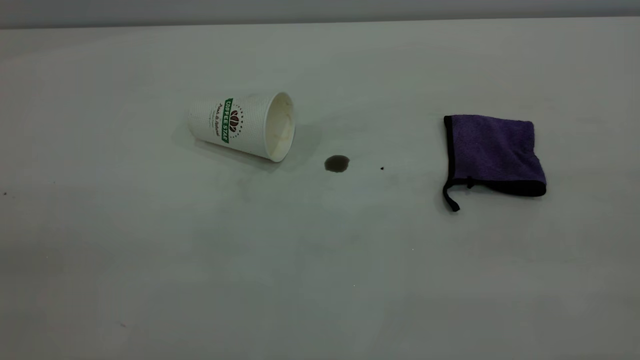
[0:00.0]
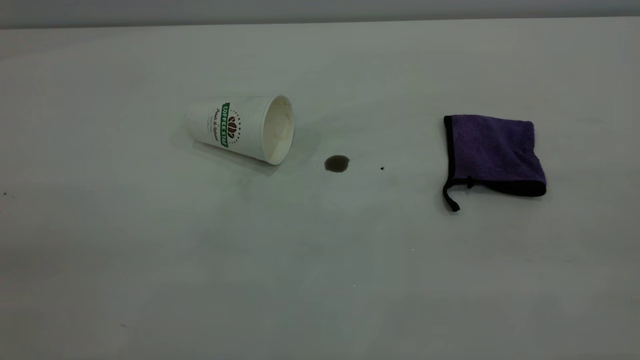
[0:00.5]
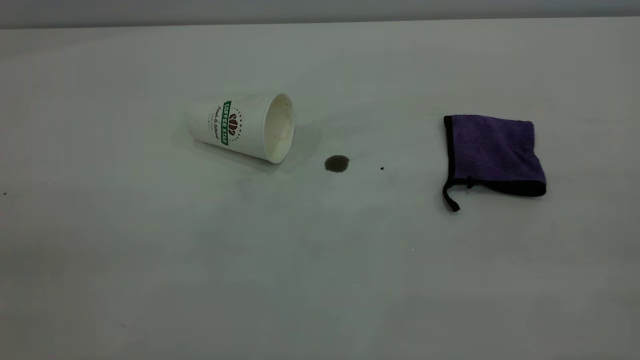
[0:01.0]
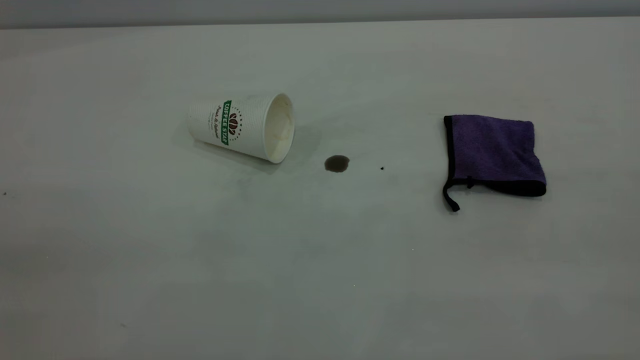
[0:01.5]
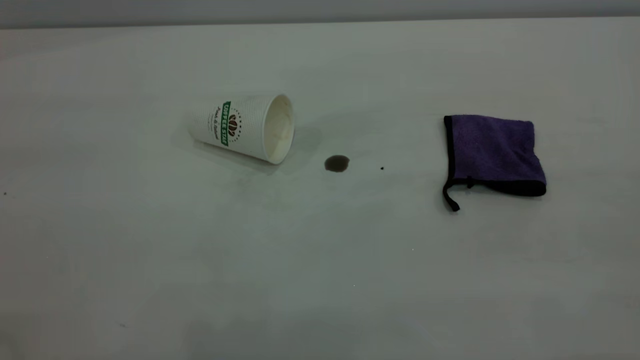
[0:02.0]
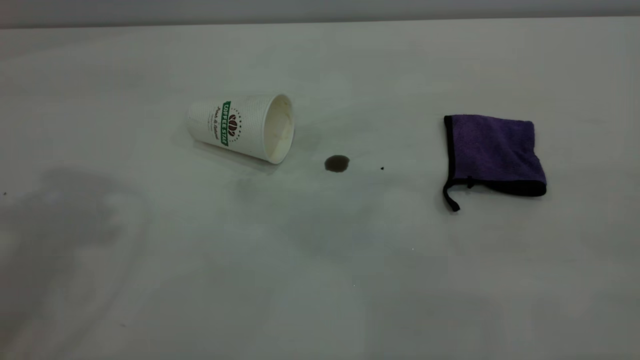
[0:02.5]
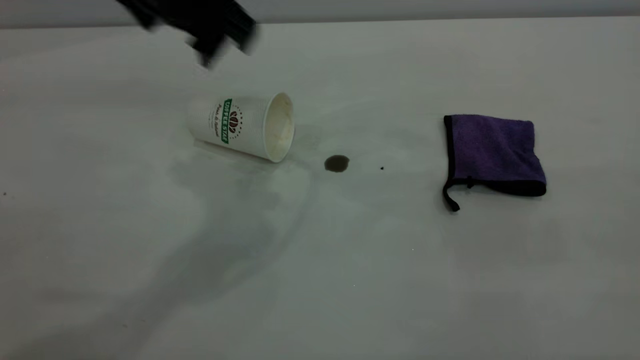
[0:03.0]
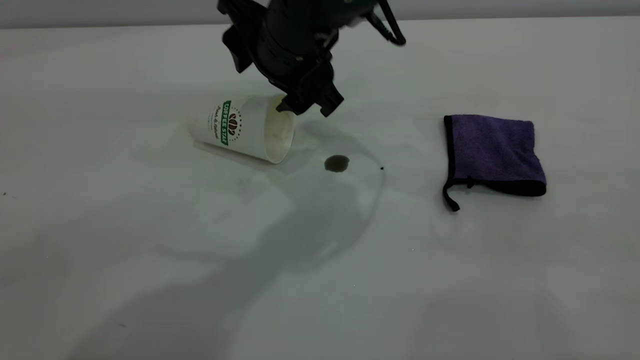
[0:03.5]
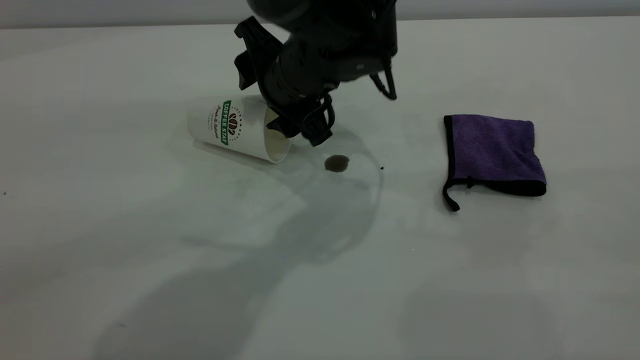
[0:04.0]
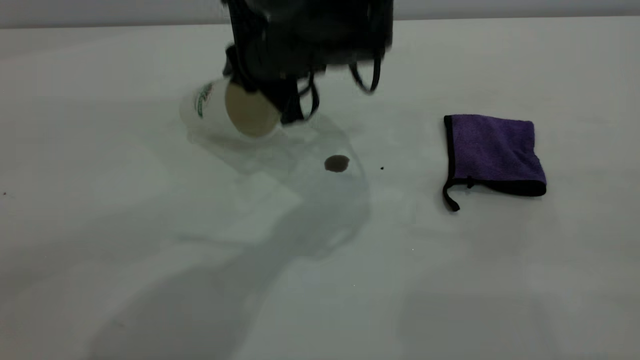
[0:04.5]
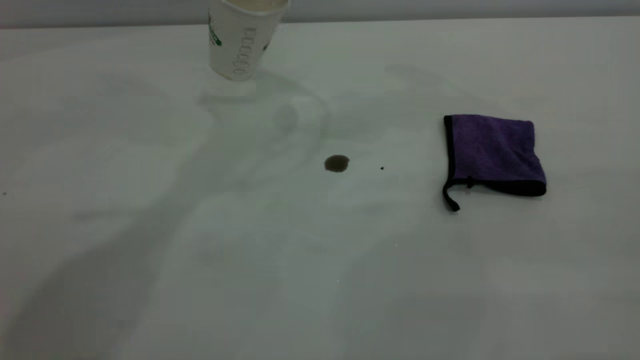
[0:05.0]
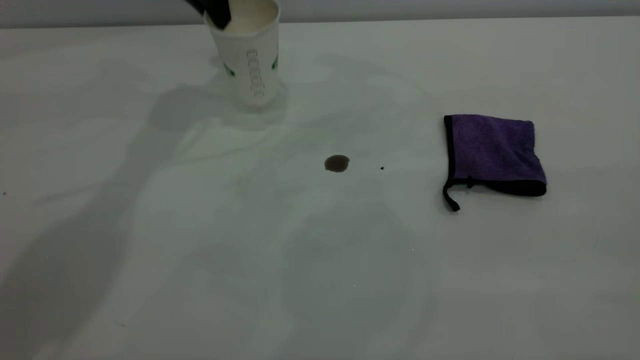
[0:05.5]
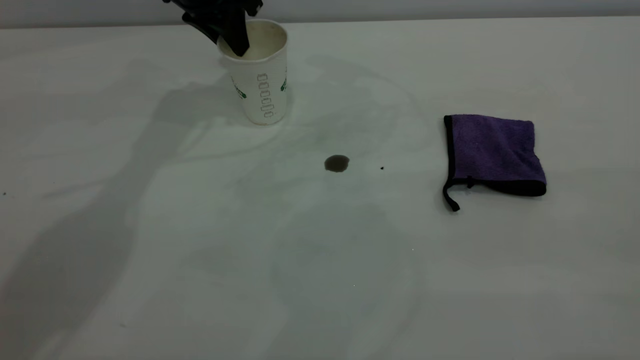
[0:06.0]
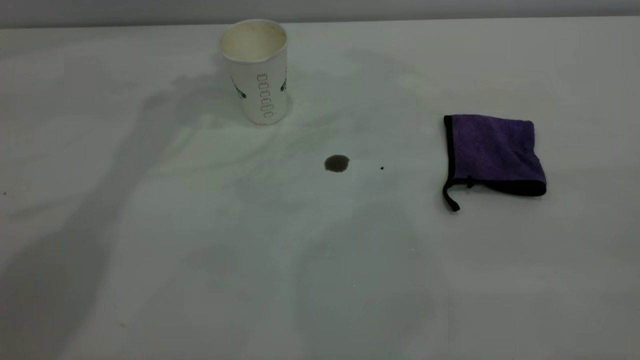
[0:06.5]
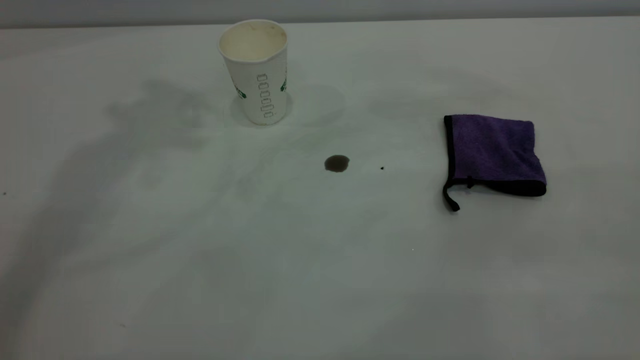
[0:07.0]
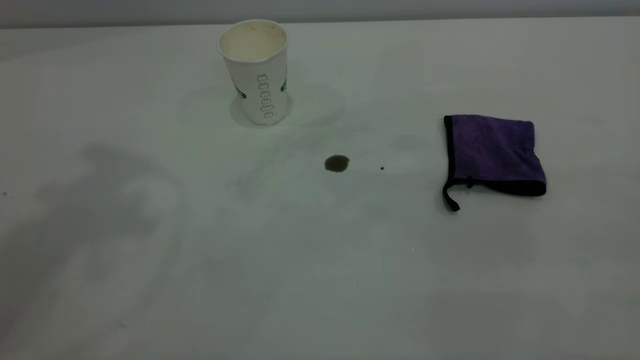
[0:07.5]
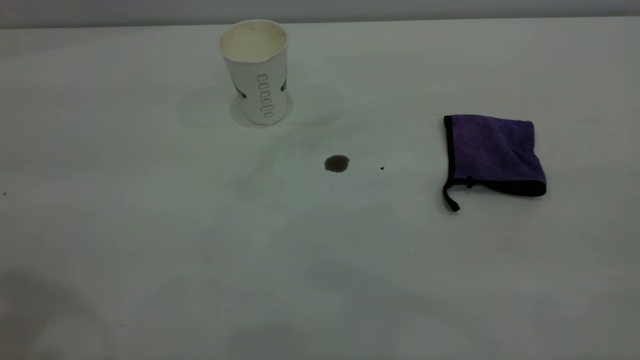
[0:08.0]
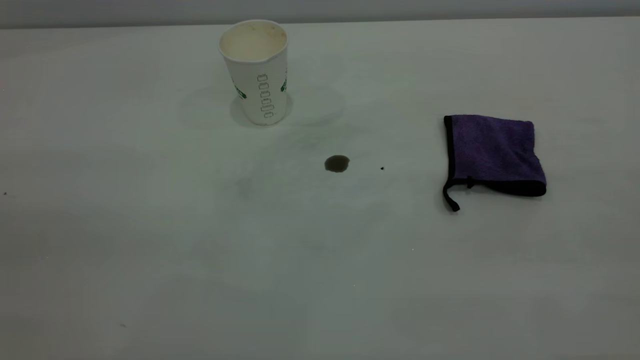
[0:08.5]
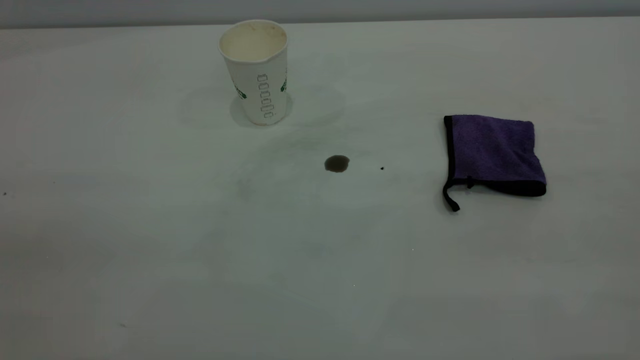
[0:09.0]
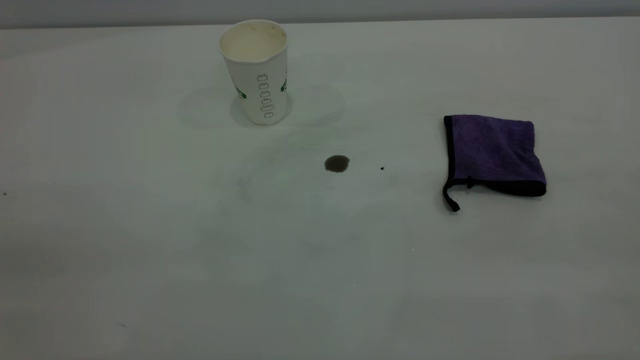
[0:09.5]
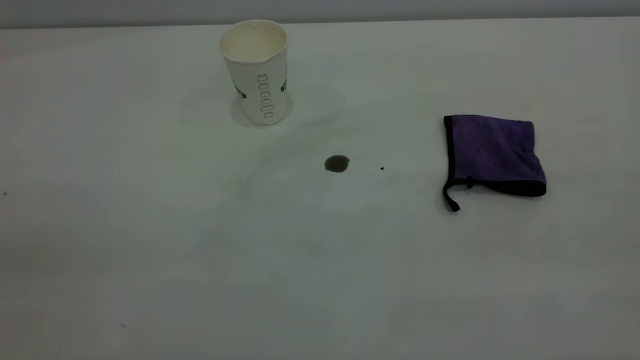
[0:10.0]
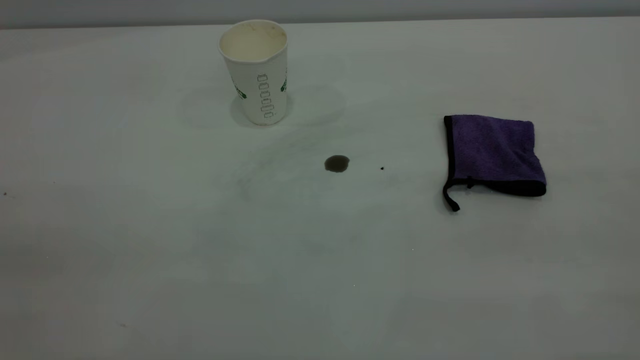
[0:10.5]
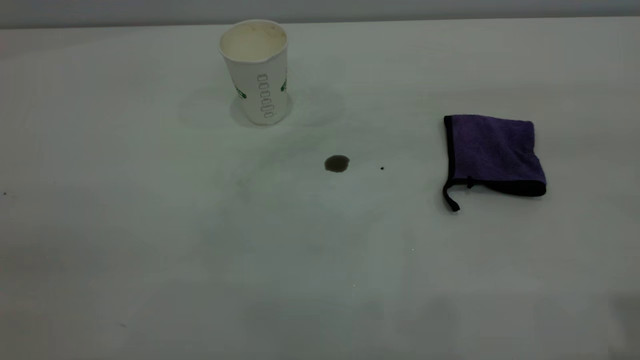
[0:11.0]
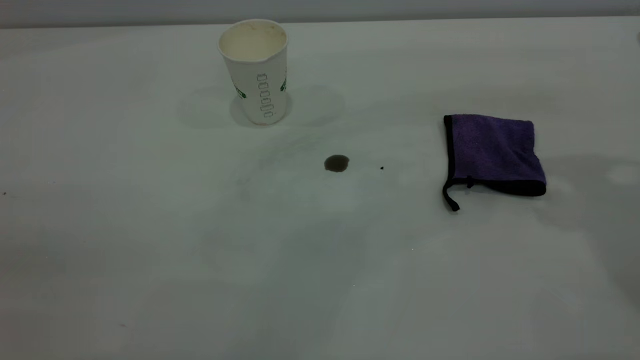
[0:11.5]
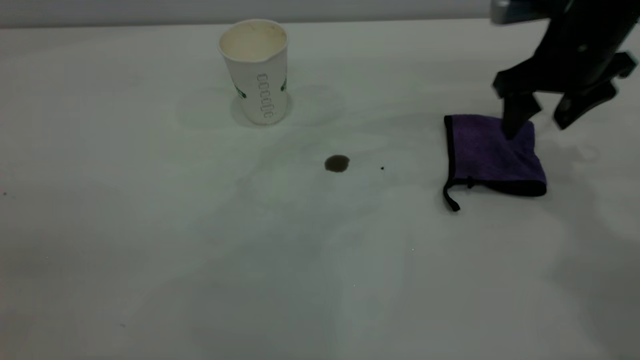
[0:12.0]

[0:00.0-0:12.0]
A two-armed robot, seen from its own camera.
Task of the whole recording: the left gripper pick up the fallen cup and place it upright, the right gripper grasp the purple rag and wipe the coffee stain on the table, the right gripper put the purple rag back in its original position.
Step, 0:00.0 to 0:06.0: Stand the paper cup upright.
0:02.0 to 0:04.0: The left gripper shifts approximately 50 cm downward, to the right and forward.
0:04.0 to 0:06.0: The left gripper travels to the left, forward and upward by approximately 20 cm, and closes up.
0:06.0 to 0:08.0: The left gripper travels backward and upward by some 40 cm.
0:10.0 to 0:12.0: The right gripper goes roughly 50 cm forward and downward, and opens its fingers.

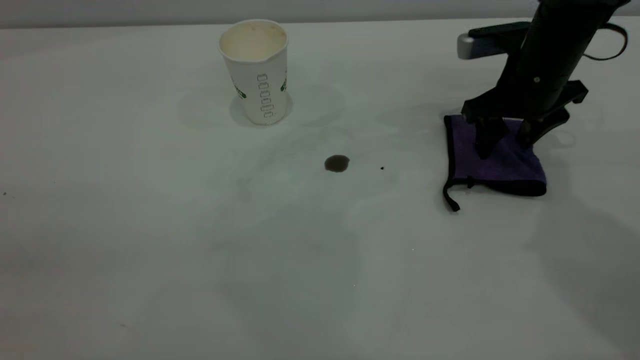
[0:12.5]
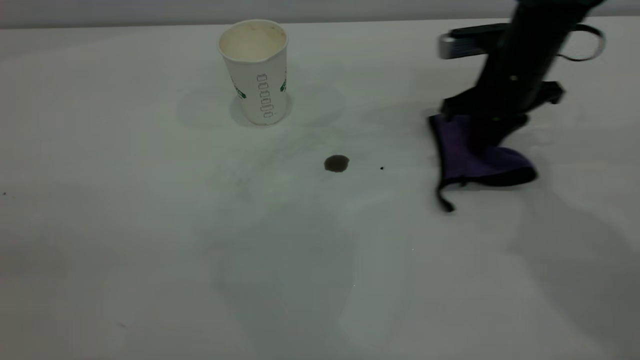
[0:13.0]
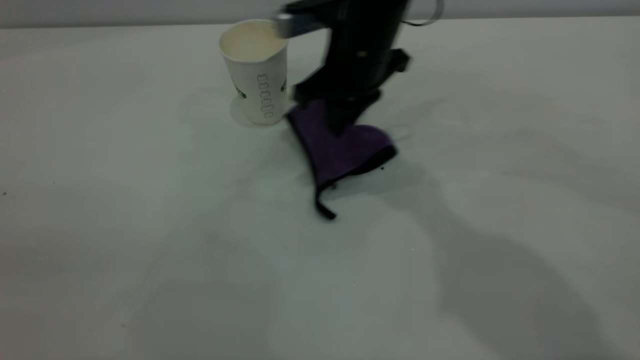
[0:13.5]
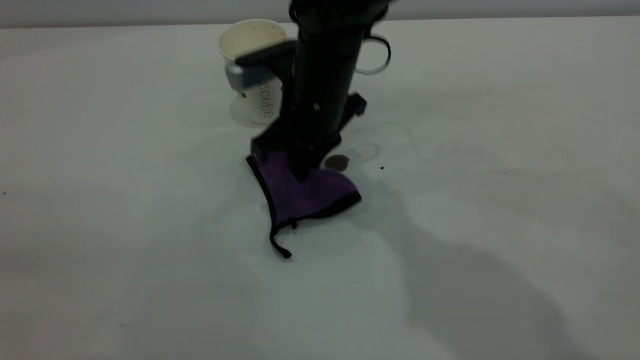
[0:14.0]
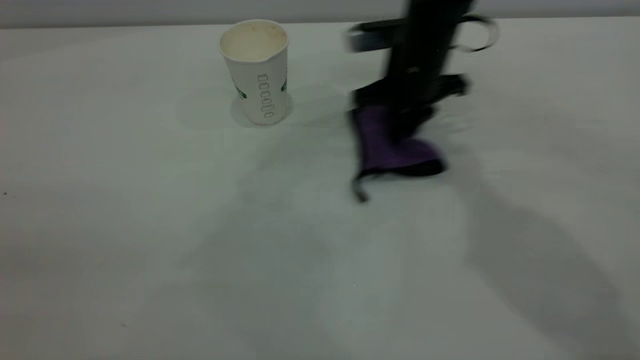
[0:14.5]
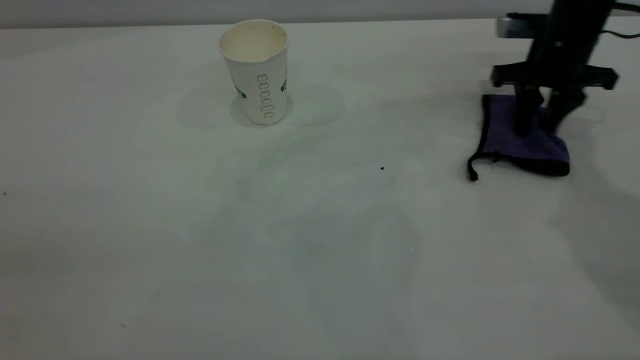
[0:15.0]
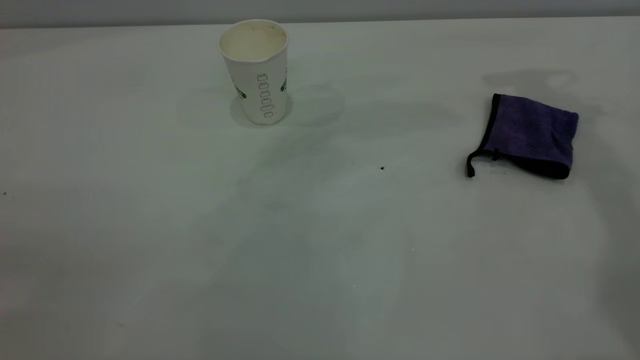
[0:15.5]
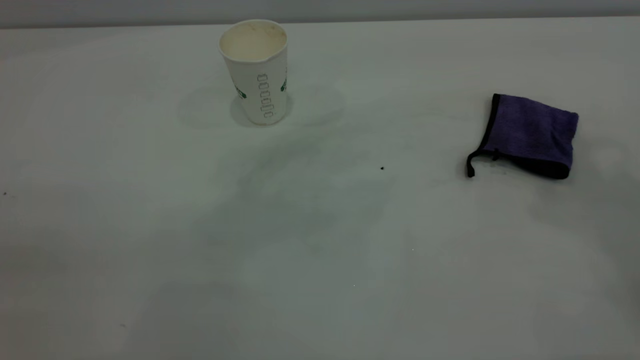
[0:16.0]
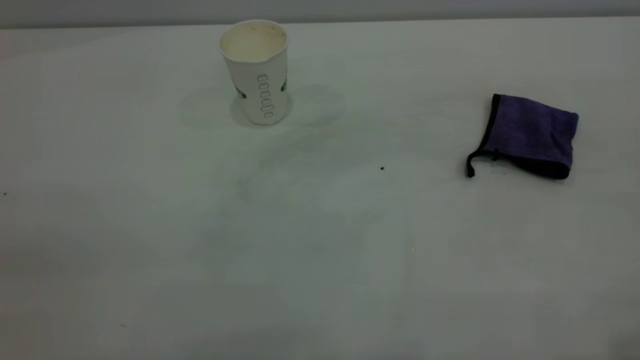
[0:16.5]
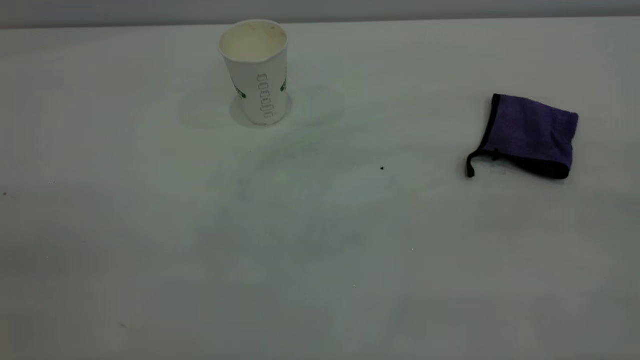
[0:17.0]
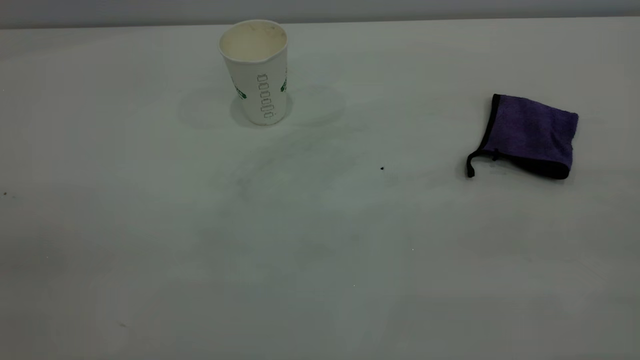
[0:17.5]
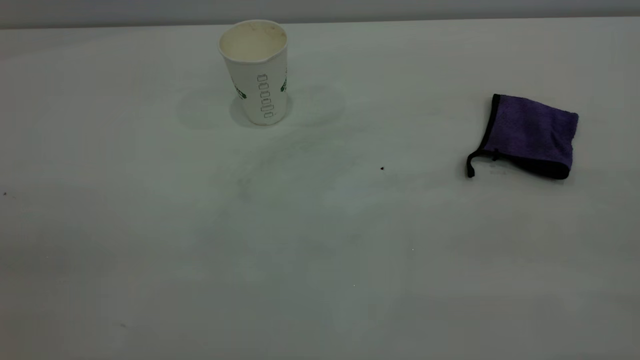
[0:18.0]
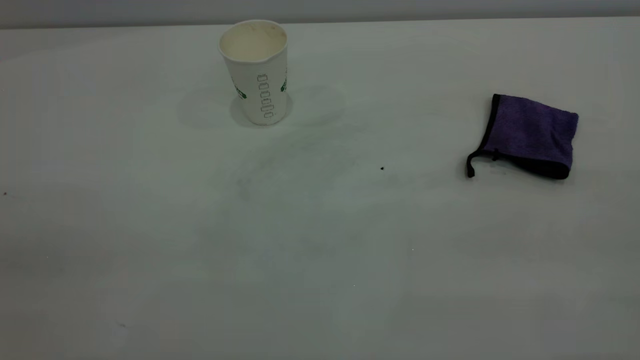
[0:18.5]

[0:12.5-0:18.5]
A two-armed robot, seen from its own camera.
Task of the whole recording: the left gripper pick up the fallen cup and place it upright, the right gripper grasp the purple rag and wipe the coffee stain on the table, the right gripper put the purple rag back in its original position.
Step, 0:12.5 to 0:15.0: Wipe the stains off the table with a rag.
0:12.5 to 0:14.5: The right gripper moves to the left, roughly 10 cm, and closes.
0:14.5 to 0:16.5: The right gripper travels backward, upward and to the right by about 50 cm, and opens up.

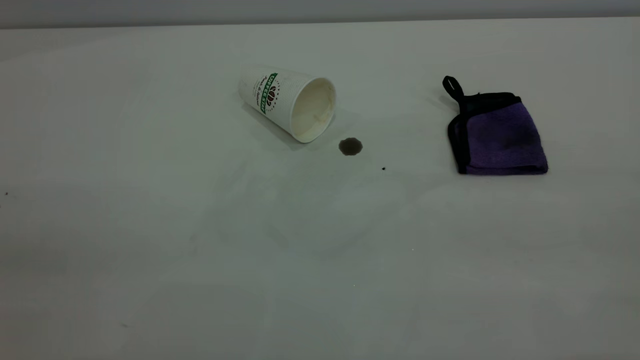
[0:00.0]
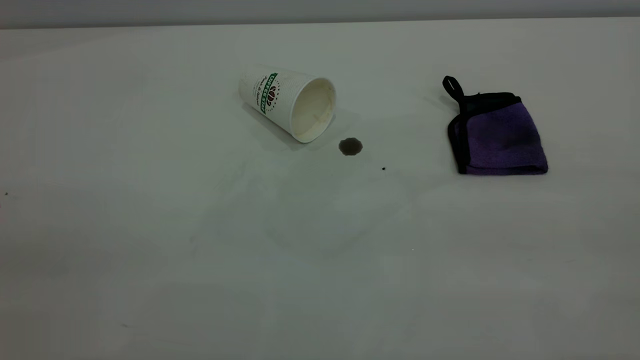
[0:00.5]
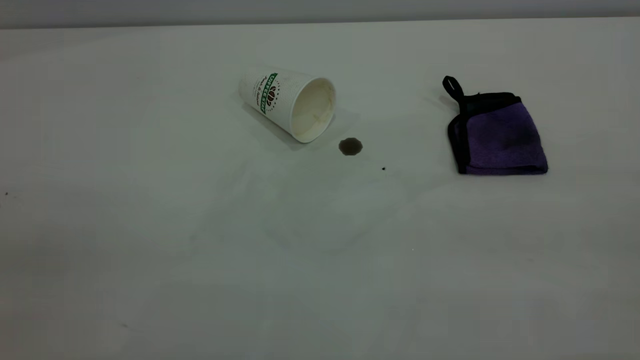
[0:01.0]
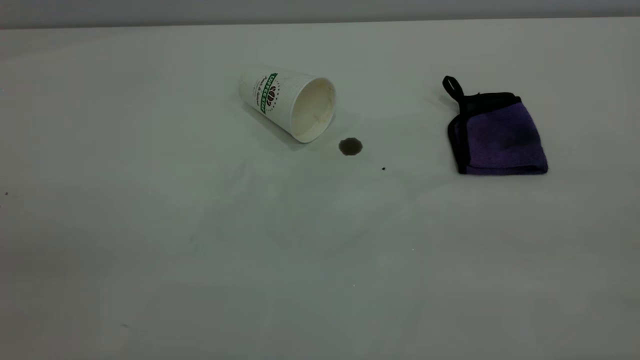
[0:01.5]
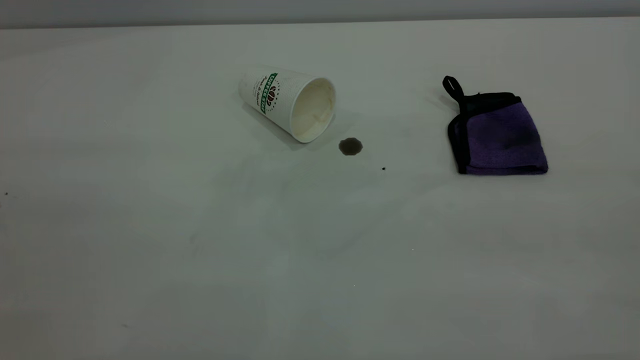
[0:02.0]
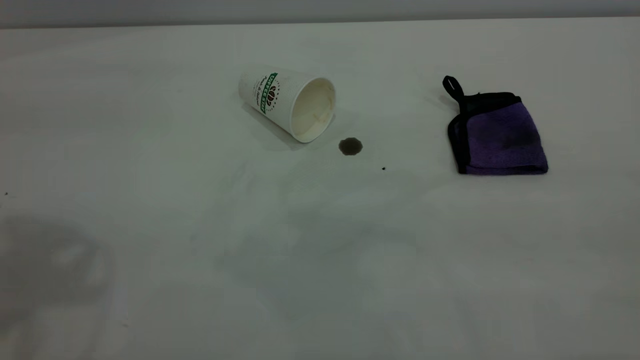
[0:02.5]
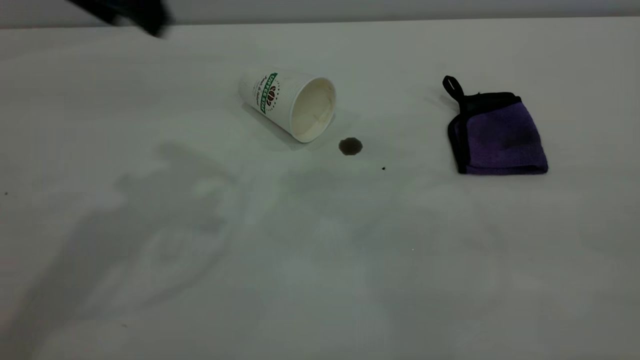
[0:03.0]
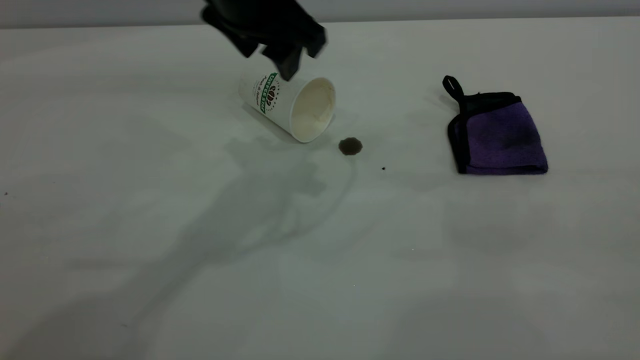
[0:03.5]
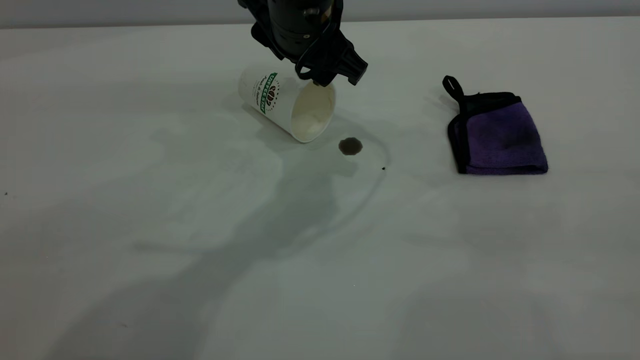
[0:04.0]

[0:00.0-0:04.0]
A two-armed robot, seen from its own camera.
Task of the whole recording: the left gripper pick up the fallen cup and place it upright, the right gripper grasp the purple rag and wipe the coffee stain on the table, the right gripper put the purple rag back in its original position.
0:02.0 to 0:04.0: The left gripper goes some 50 cm forward, to the right and downward.
